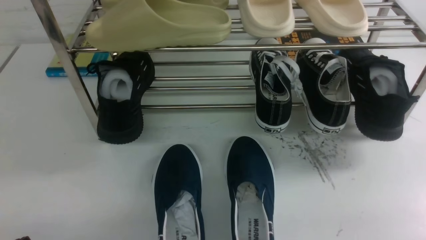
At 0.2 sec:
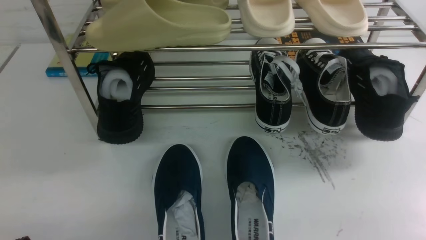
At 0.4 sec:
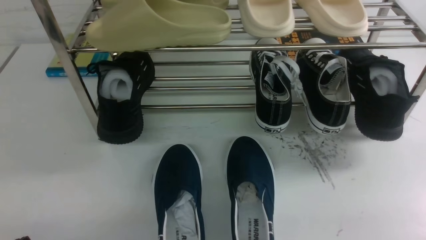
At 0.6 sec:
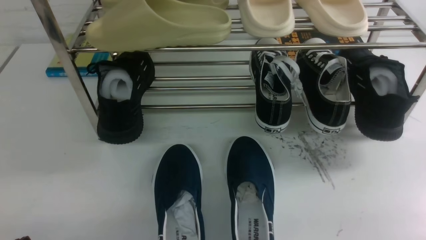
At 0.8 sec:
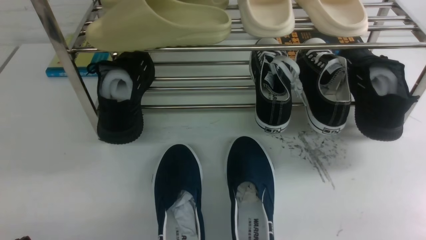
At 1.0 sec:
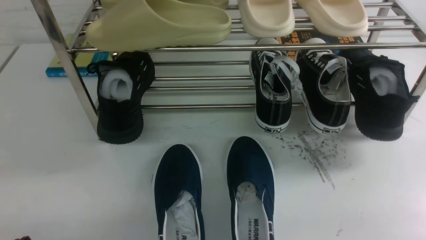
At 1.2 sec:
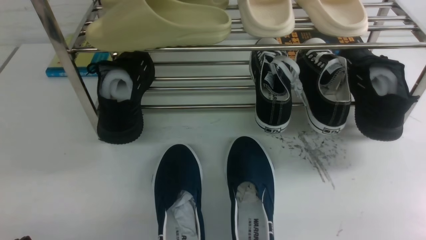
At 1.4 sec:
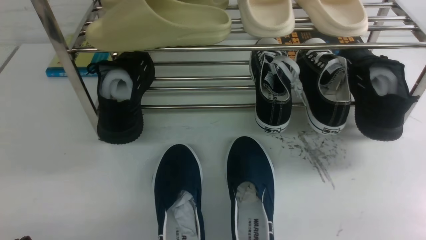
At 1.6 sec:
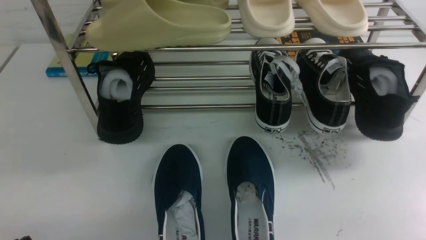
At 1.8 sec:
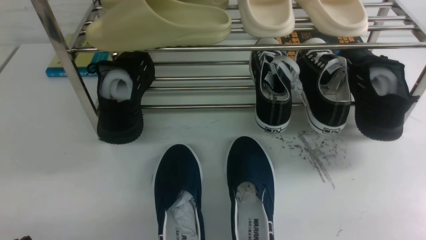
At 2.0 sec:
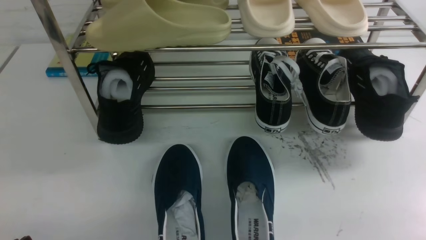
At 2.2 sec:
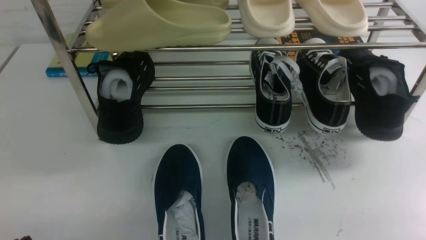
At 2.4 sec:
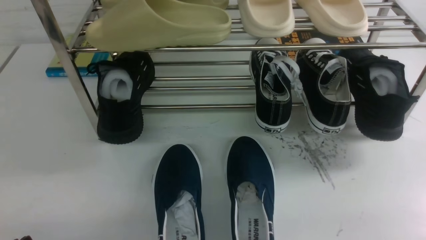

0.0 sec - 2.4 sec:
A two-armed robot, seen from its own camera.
0.0 sec - 2.4 sec: Both grippers stay put.
